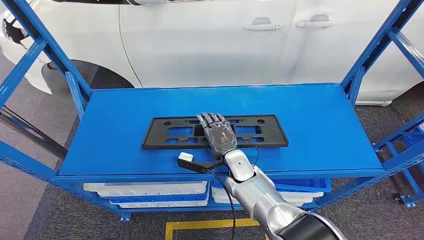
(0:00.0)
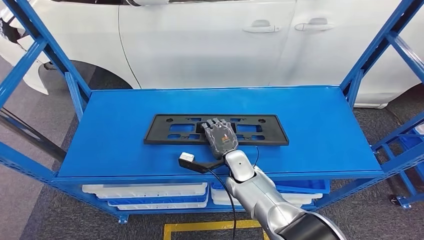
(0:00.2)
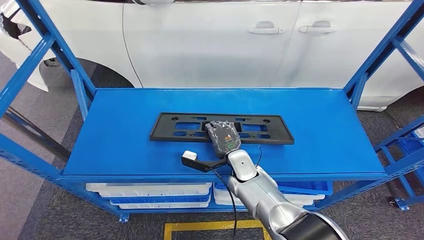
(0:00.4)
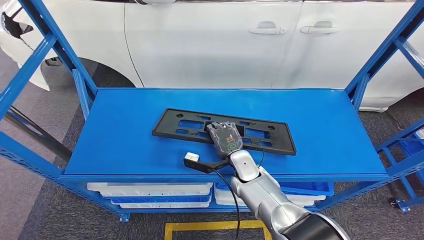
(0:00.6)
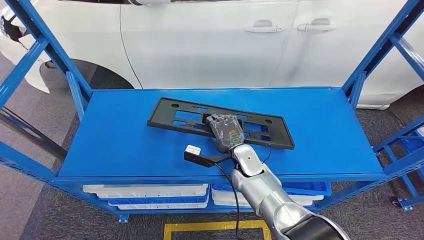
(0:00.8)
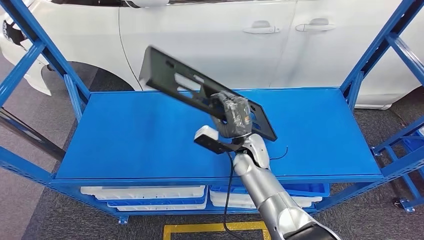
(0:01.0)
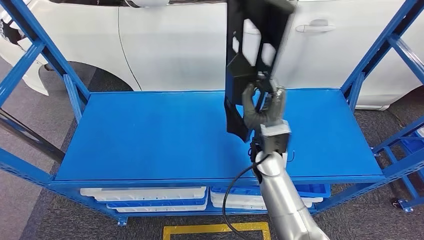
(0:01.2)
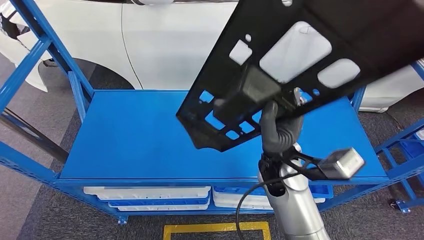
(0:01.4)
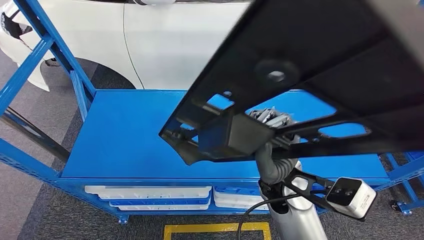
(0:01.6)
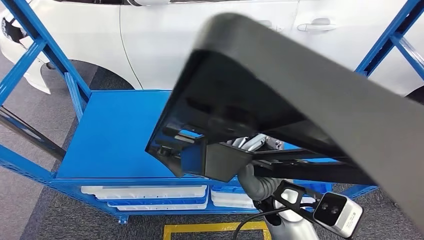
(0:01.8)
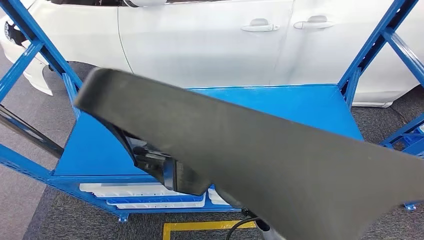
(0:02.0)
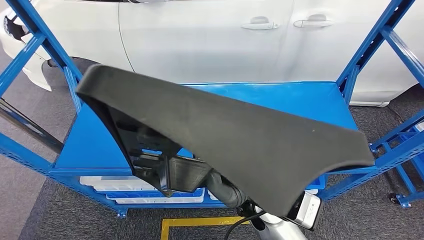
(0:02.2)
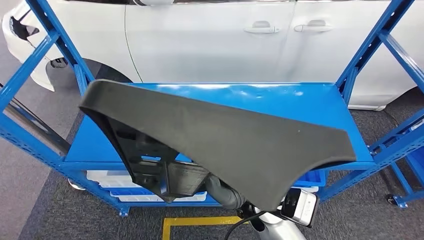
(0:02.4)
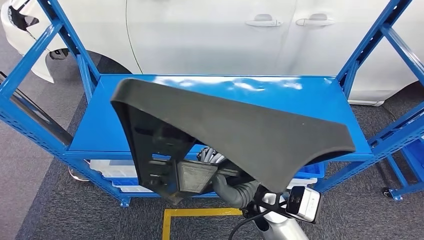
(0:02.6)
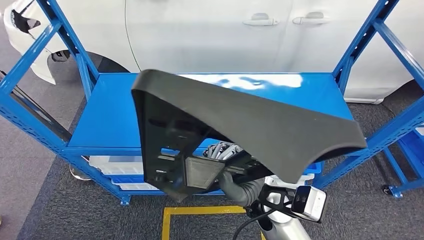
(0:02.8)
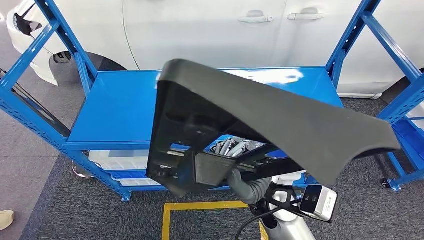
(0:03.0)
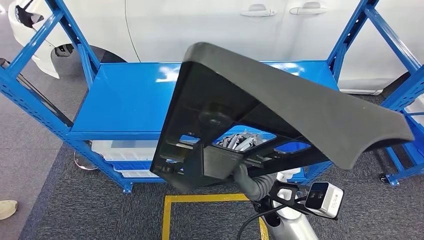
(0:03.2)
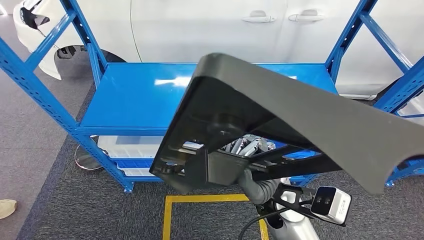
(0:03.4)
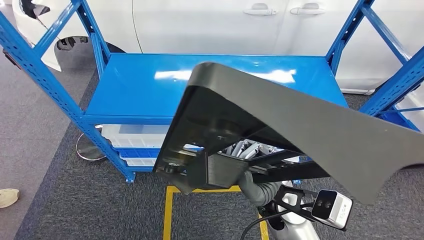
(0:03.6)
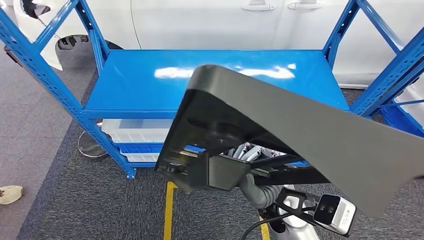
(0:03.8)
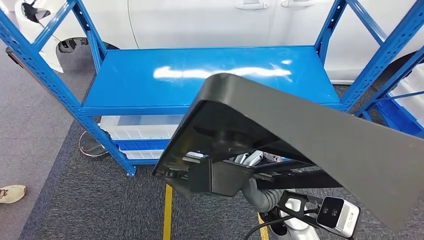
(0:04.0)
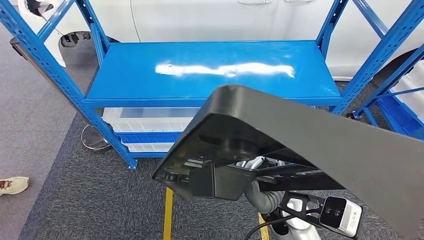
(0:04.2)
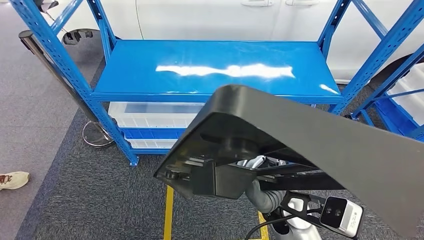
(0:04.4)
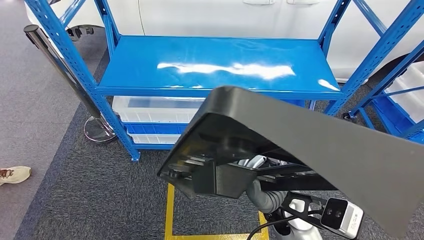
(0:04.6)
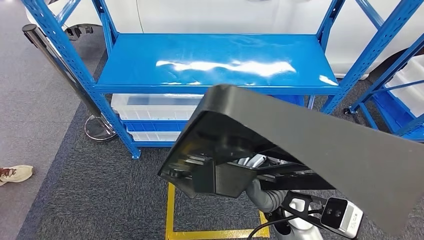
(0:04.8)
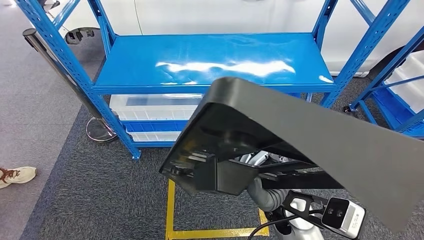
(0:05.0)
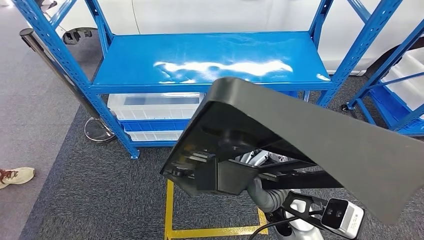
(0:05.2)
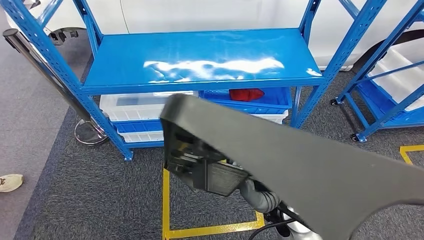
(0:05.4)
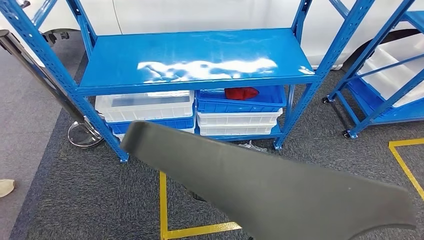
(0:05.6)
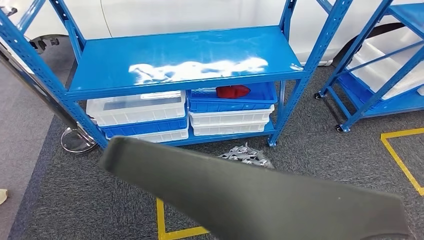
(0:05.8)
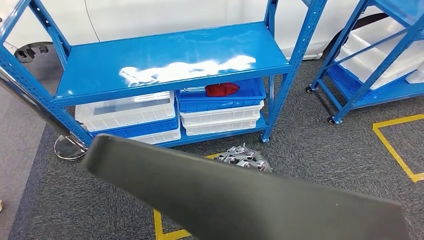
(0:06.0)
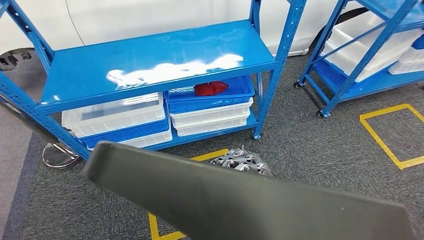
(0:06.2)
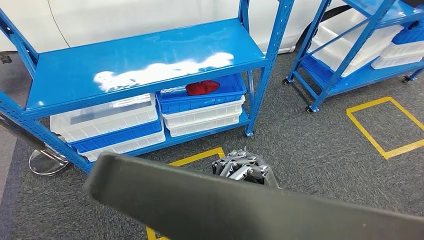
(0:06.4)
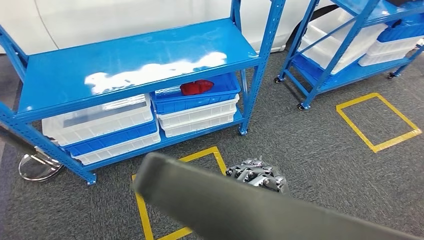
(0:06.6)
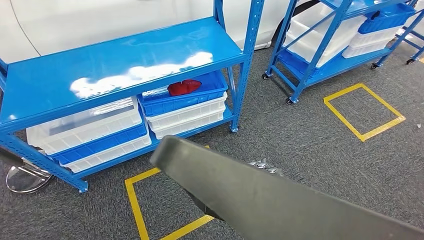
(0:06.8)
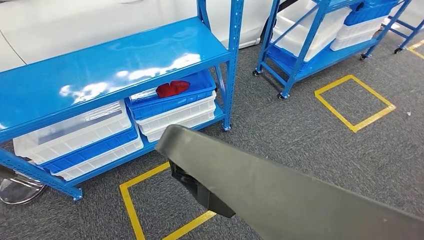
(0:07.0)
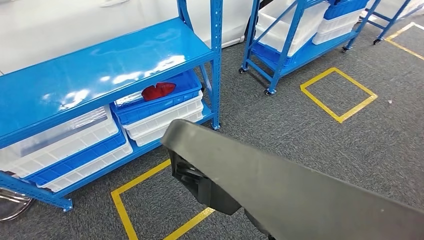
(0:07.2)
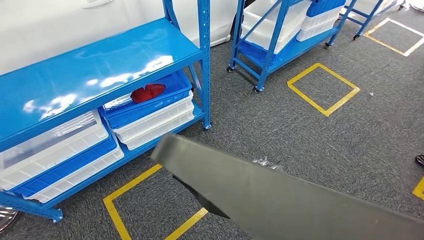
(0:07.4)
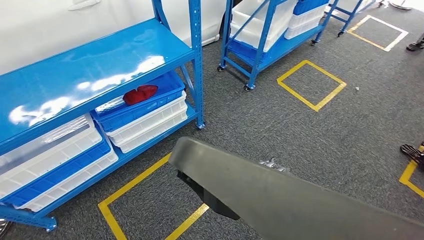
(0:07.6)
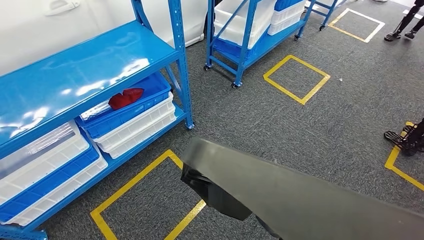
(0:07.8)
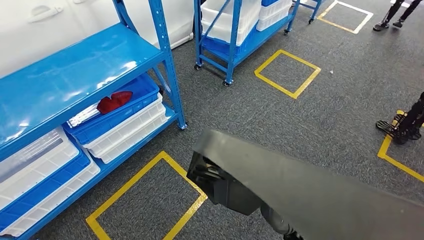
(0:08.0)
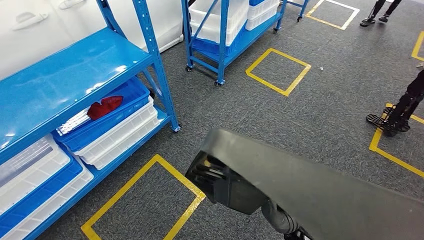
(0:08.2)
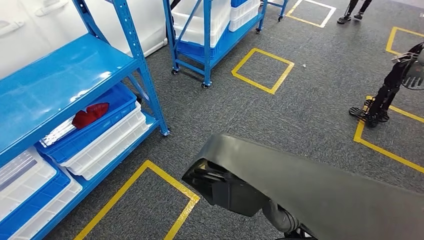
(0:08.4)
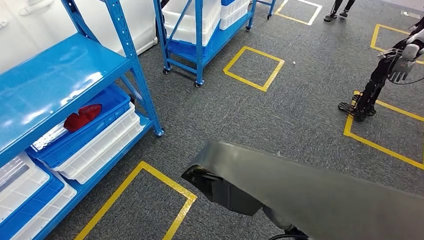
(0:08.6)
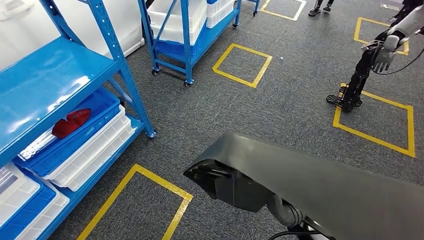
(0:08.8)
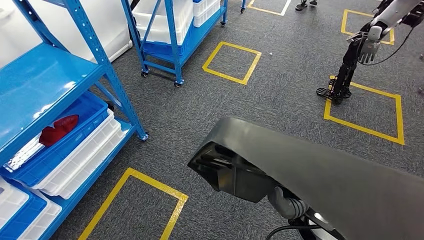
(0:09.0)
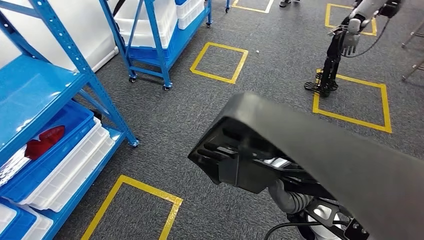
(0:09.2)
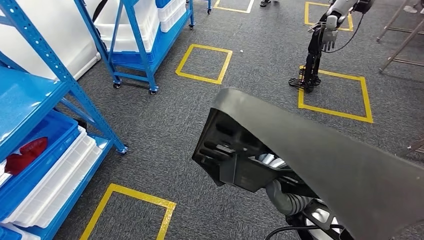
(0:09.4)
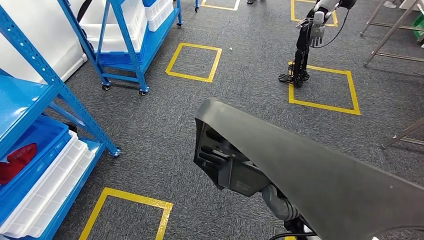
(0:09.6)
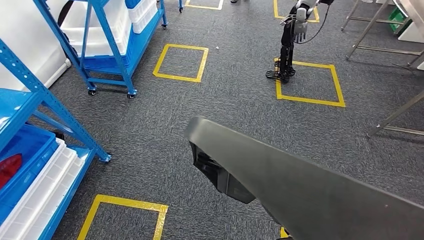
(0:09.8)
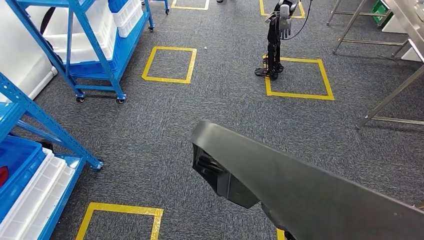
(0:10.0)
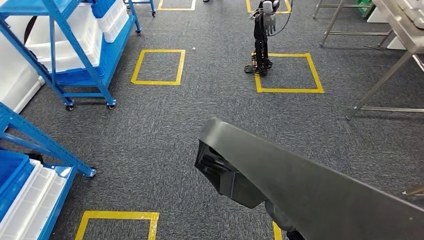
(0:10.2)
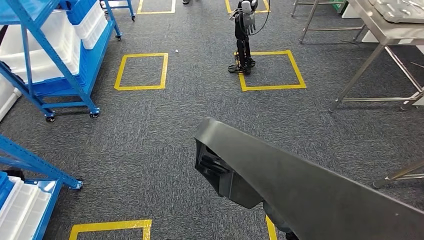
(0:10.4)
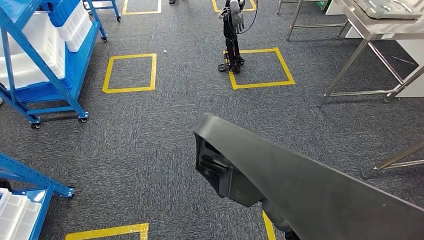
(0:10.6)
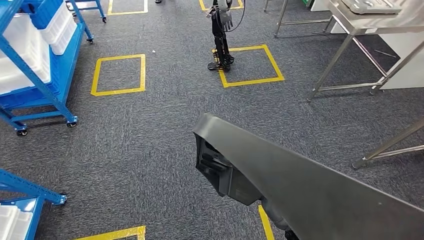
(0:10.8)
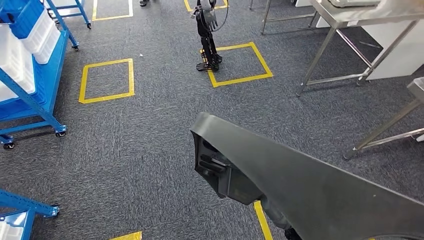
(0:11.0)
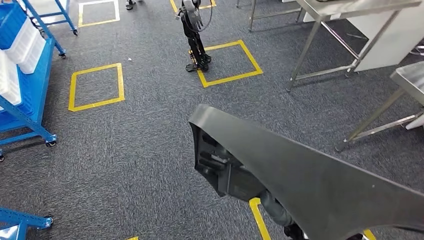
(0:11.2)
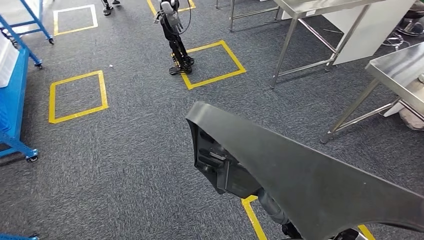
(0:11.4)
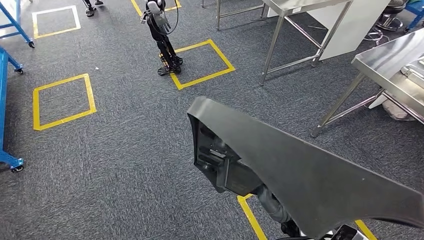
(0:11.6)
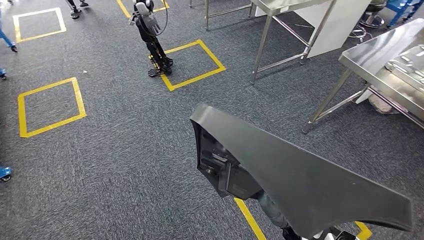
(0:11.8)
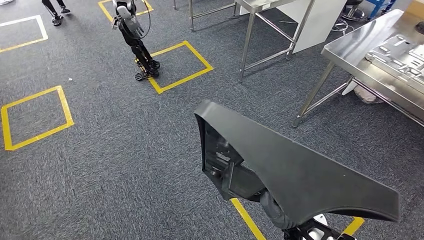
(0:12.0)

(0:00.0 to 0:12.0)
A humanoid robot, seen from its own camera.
Step, 0:00.0 - 0:02.0: Take small components from the rack.

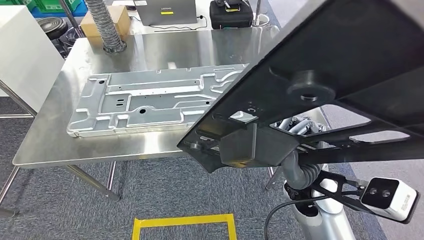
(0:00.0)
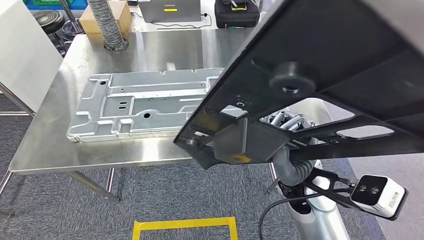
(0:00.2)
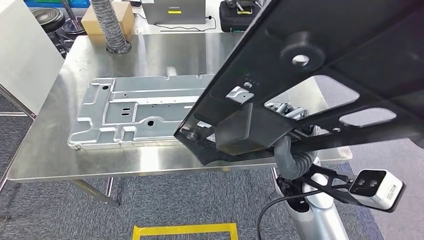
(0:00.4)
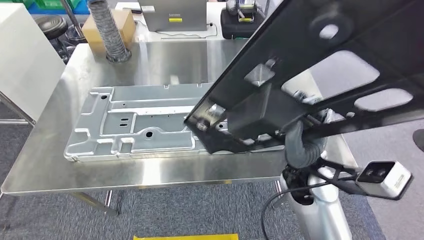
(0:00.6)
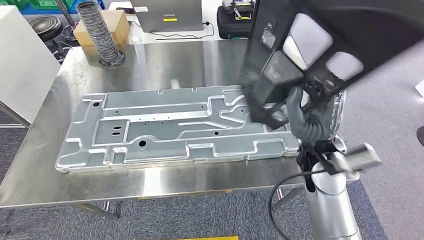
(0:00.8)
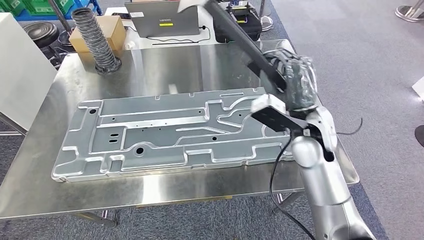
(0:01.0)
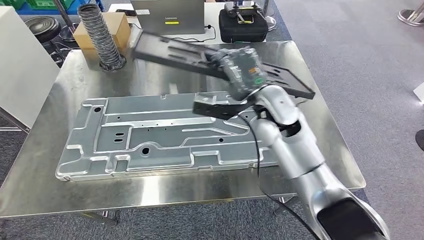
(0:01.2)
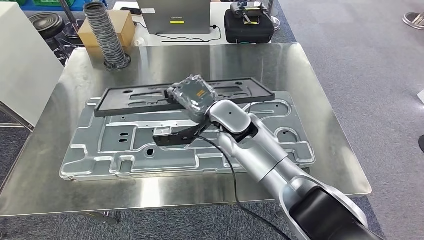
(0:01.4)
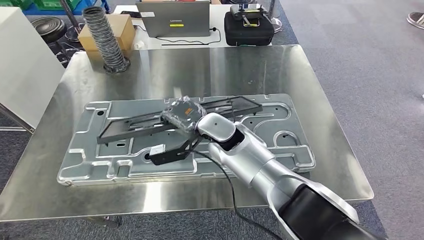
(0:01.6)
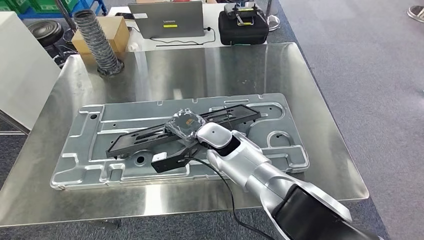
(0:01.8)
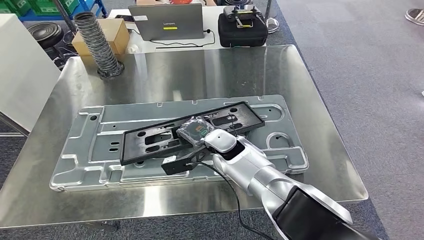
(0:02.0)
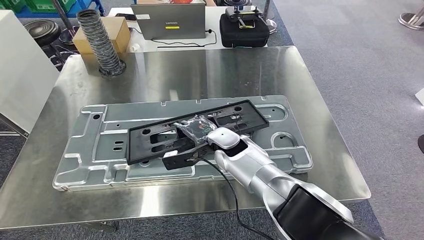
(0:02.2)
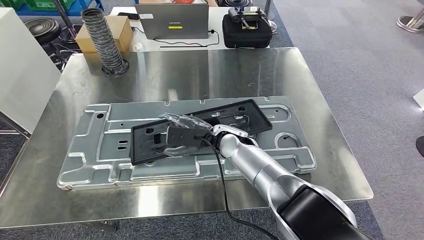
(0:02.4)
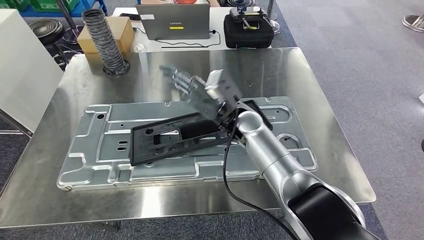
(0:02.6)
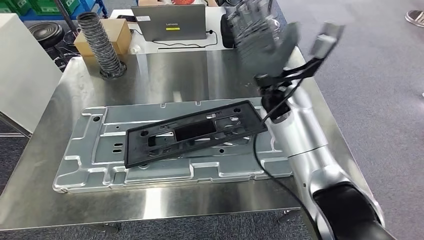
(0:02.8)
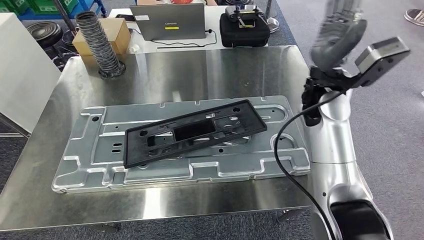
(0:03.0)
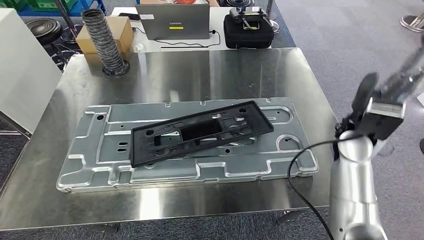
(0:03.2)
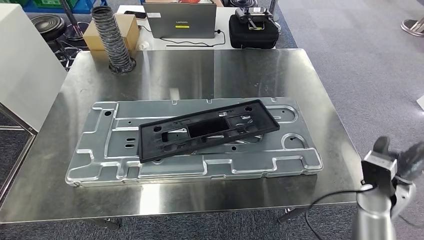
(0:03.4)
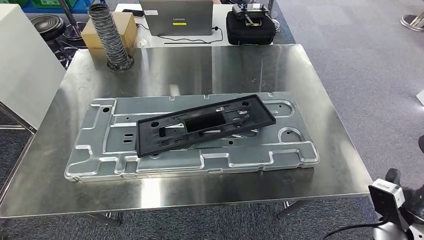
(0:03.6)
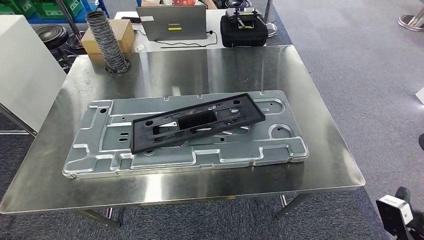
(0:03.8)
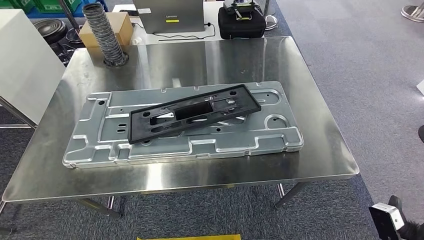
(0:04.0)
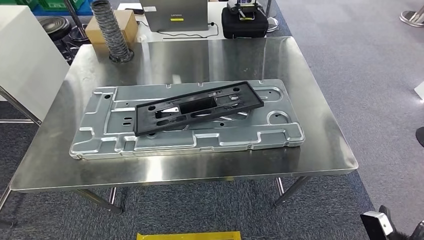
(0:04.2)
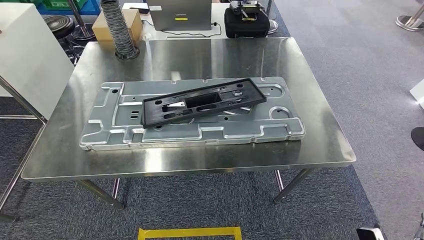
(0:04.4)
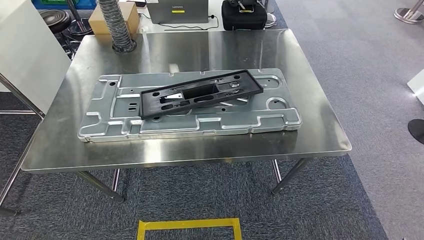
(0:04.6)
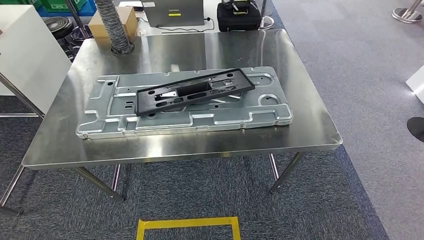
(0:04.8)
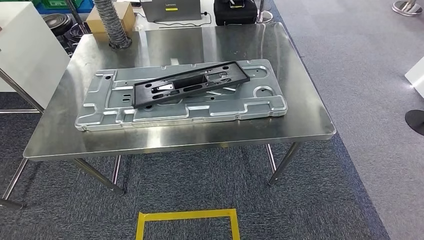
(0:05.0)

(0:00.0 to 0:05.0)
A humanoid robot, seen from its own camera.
Step, 0:00.4 - 0:03.6: Insert the small parts into the corresponding holes on the workbench.
